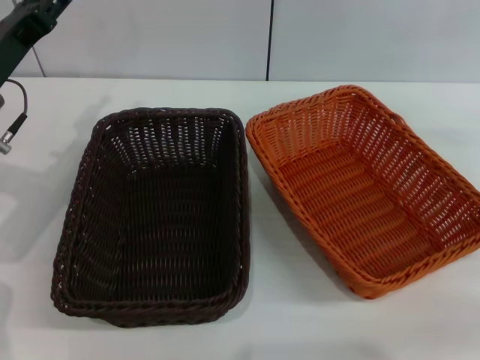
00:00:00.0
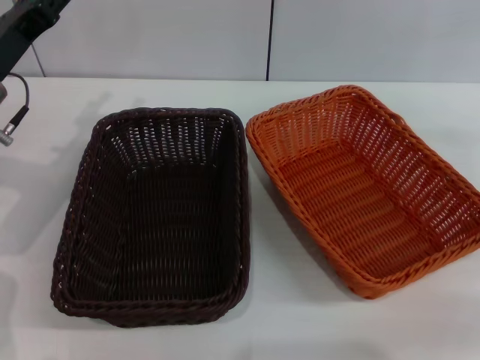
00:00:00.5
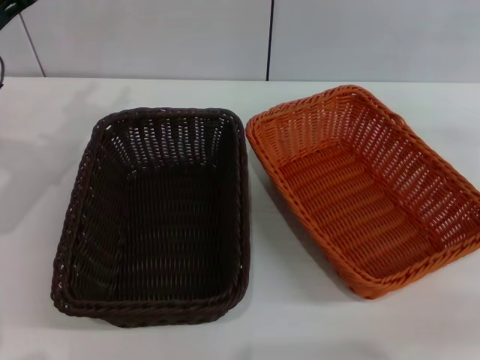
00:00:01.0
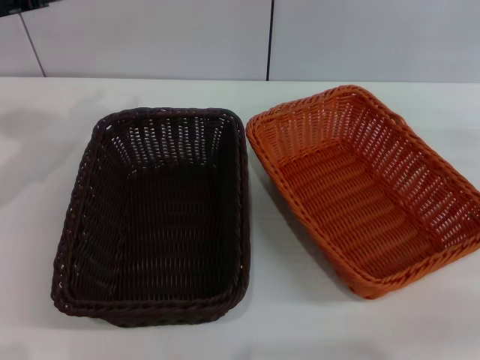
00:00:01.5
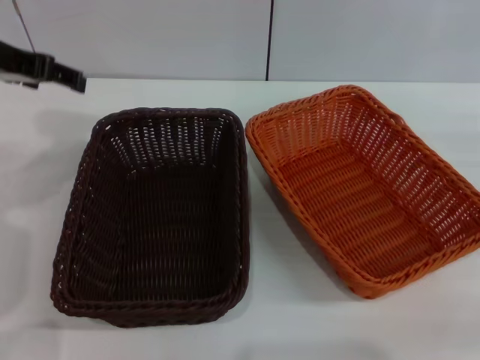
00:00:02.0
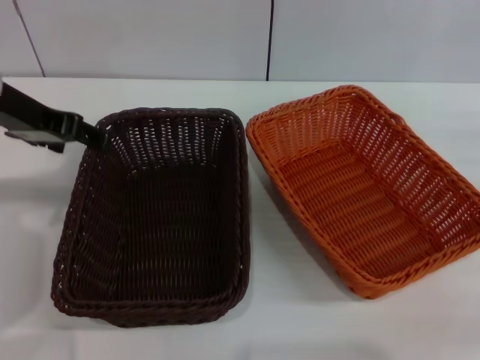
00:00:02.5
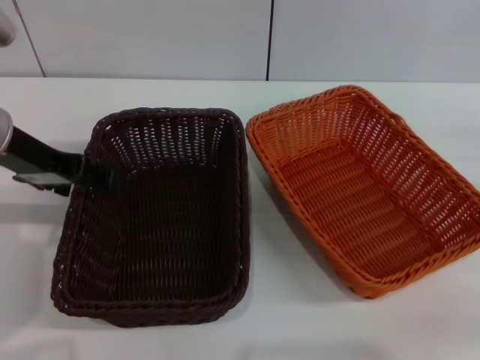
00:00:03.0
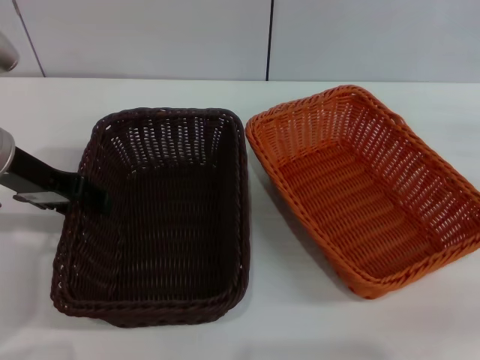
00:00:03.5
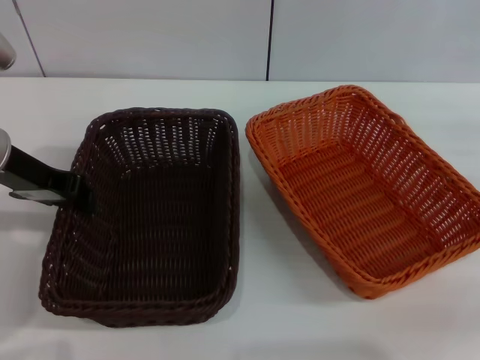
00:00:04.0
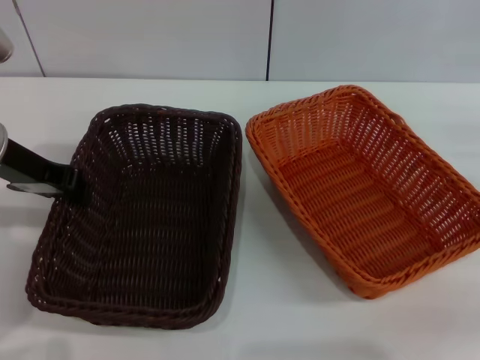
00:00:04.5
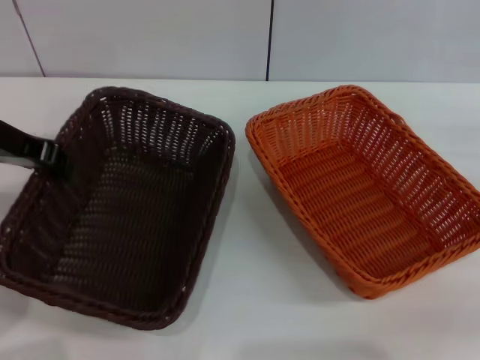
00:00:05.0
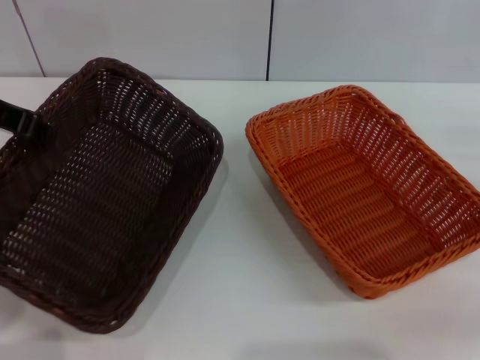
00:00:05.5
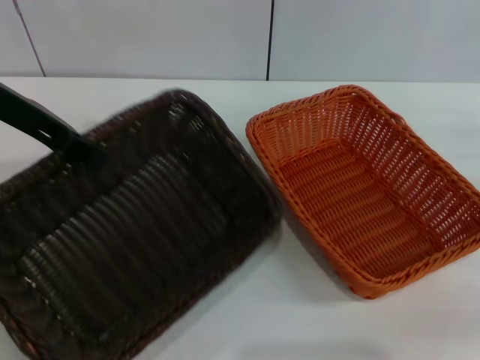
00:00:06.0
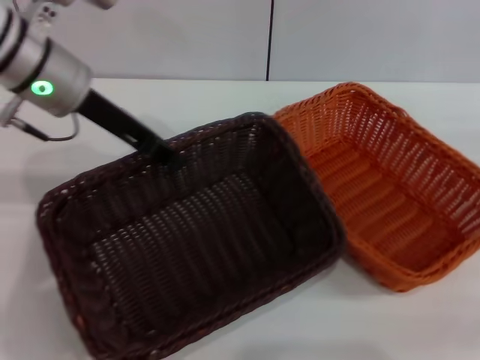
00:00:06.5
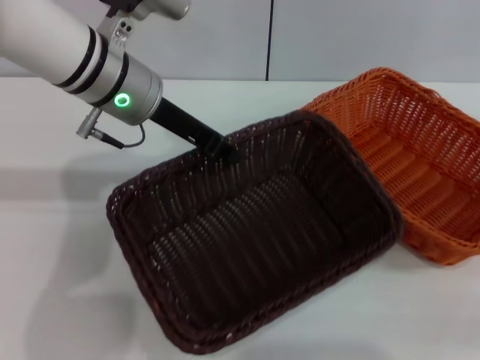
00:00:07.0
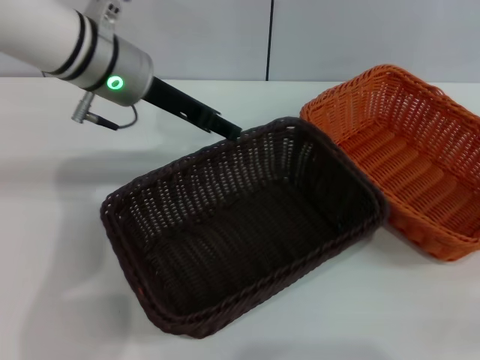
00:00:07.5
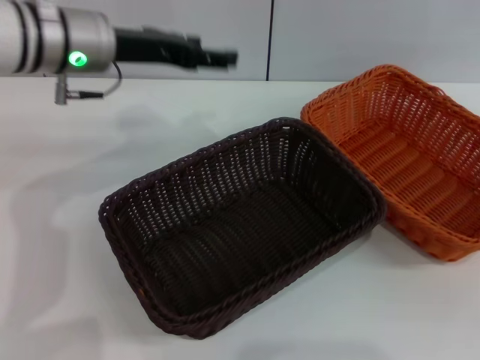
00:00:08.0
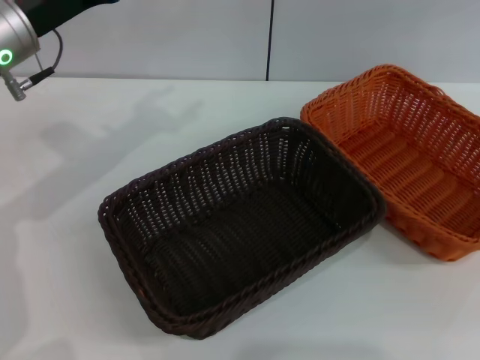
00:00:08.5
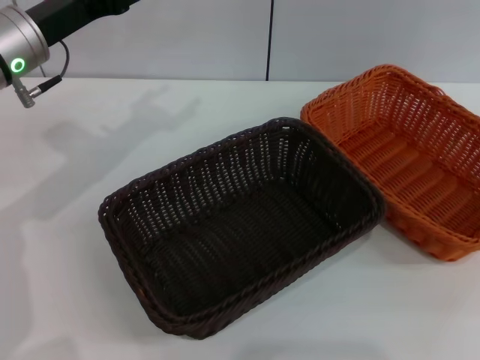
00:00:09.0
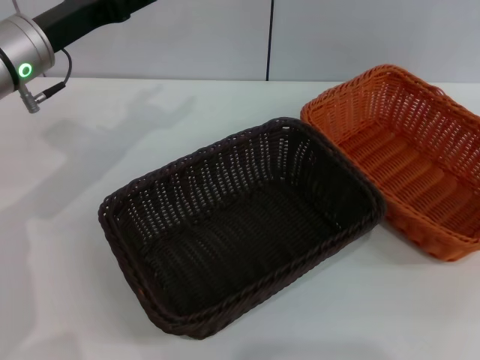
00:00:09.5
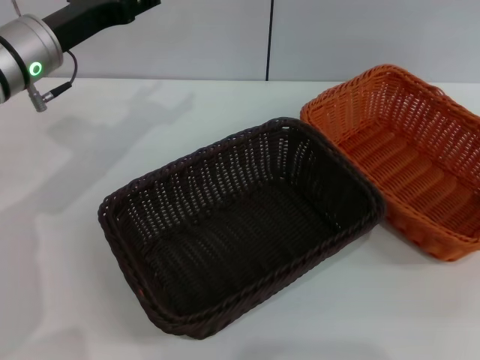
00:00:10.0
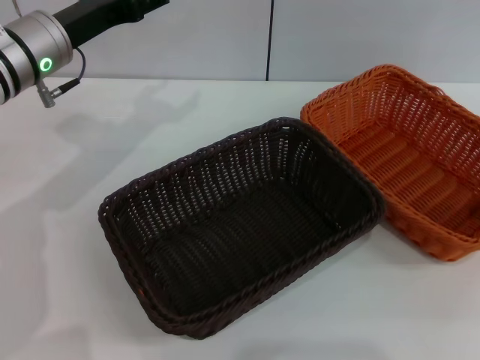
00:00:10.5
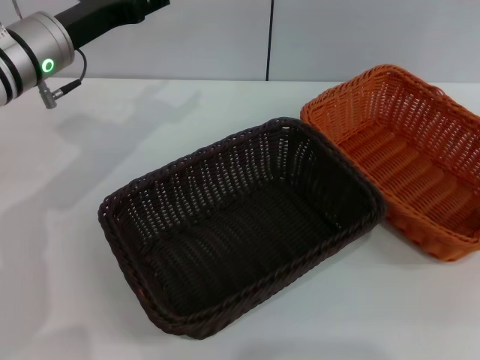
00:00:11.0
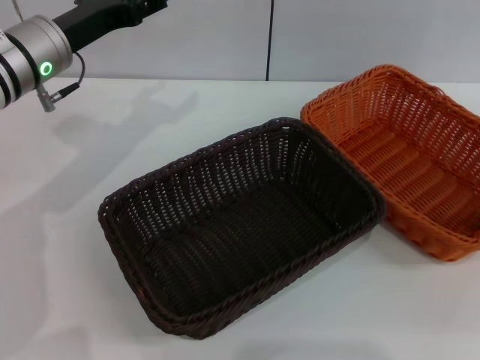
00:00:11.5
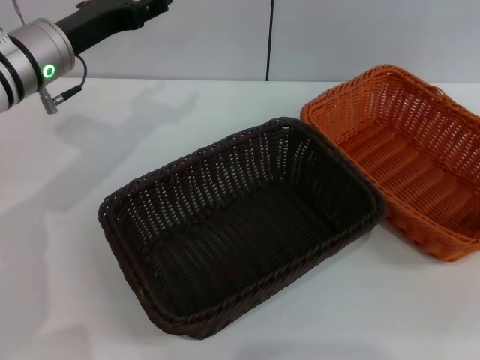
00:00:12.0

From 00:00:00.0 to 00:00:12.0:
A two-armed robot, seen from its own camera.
Step, from 00:00:00.0 to 00:00:05.0: Pick up the dark basket with the left gripper.
Step, from 00:00:05.5 to 00:00:07.5: Place the dark basket in the center of view with the left gripper.
From 00:00:00.0 to 00:00:02.0: The left gripper is displaced upward by roughly 15 cm.
From 00:00:02.0 to 00:00:04.0: The left gripper goes approximately 10 cm downward, and closes.
From 00:00:04.0 to 00:00:06.0: The left gripper is displaced upward by roughly 10 cm, and closes its fingers.
From 00:00:06.0 to 00:00:08.0: The left gripper is displaced to the right, forward and downward by some 10 cm, and opens its fingers.
From 00:00:08.0 to 00:00:10.0: The right gripper travels upward by approximately 10 cm. Meanwhile the left gripper is displaced to the left by approximately 5 cm.

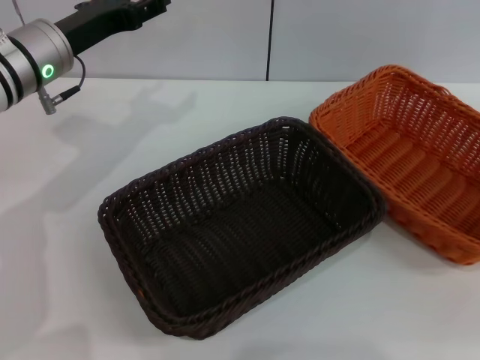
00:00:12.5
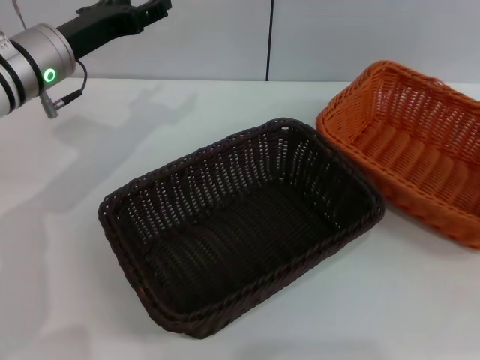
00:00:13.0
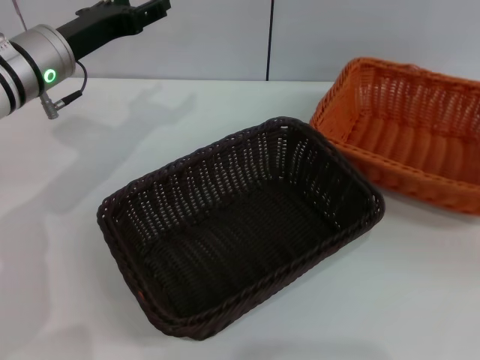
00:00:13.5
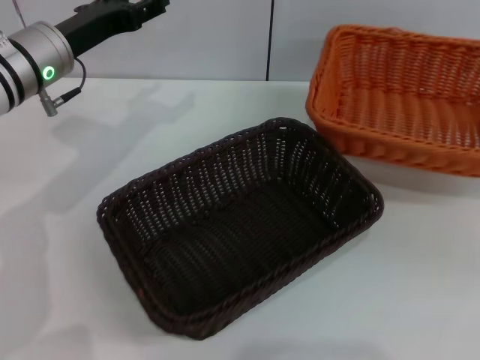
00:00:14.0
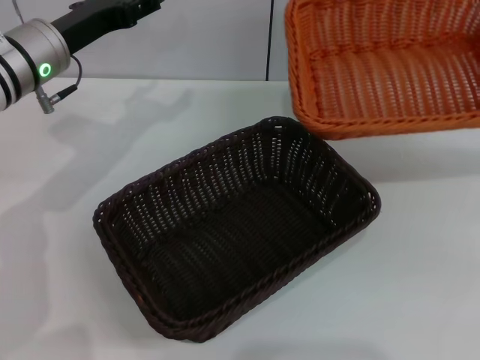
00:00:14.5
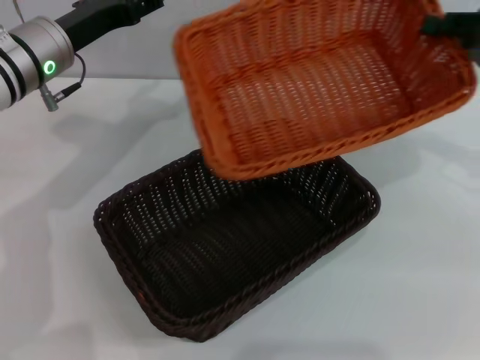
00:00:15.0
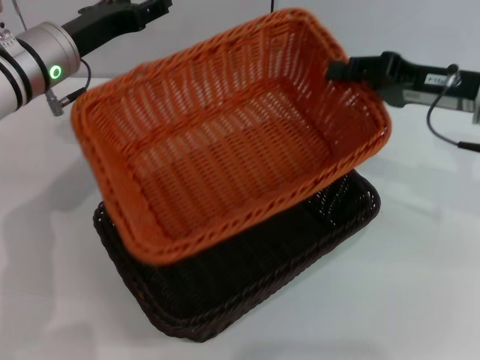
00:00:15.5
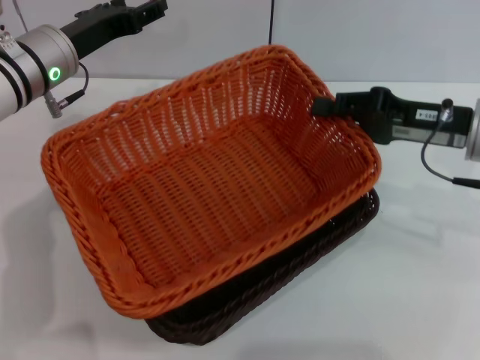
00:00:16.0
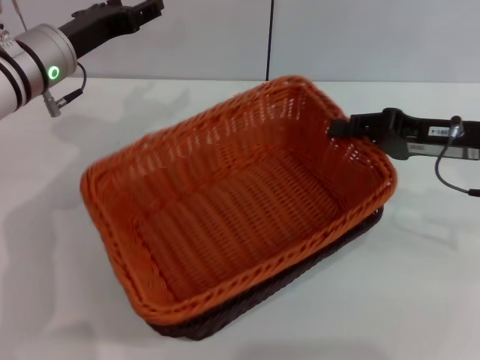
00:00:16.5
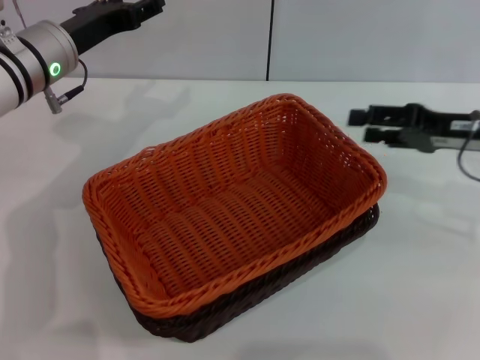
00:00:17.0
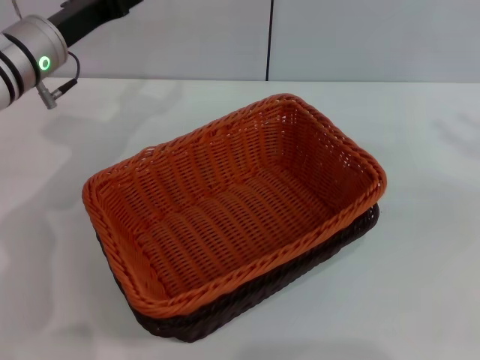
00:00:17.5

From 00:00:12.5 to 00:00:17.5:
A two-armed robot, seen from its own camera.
Step, from 00:00:14.0 to 00:00:16.5: Place the light basket on the dark basket with the right gripper.
From 00:00:12.5 to 00:00:15.0: The right gripper shifts approximately 10 cm to the left and forward.
From 00:00:15.0 to 00:00:17.5: The right gripper moves to the right, approximately 5 cm, and opens its fingers.
